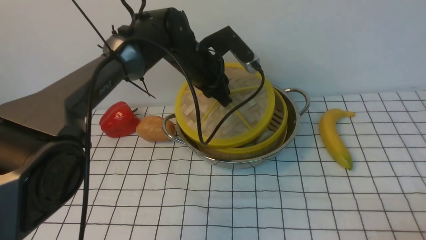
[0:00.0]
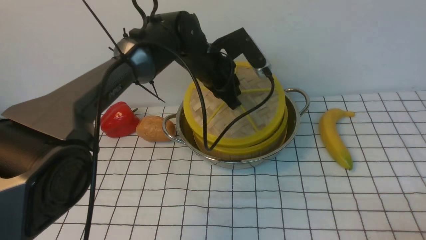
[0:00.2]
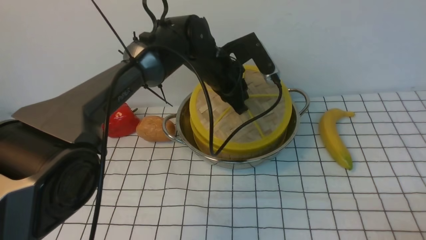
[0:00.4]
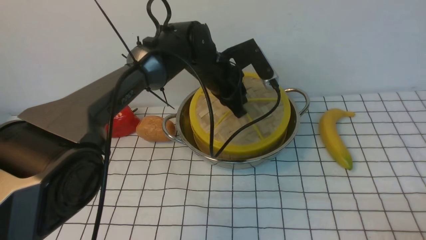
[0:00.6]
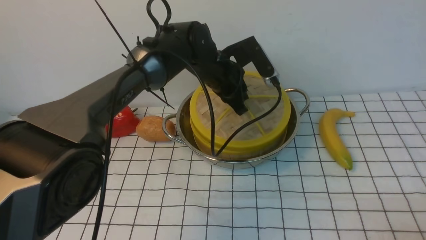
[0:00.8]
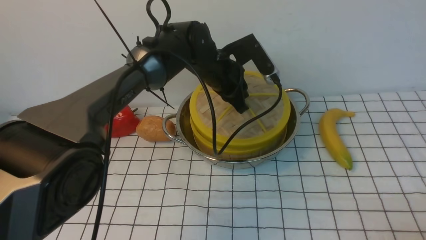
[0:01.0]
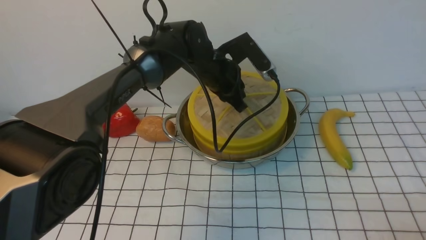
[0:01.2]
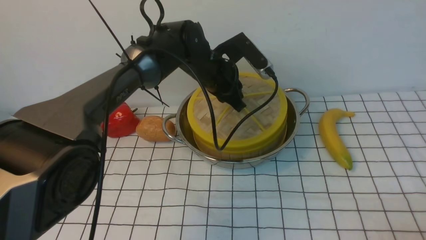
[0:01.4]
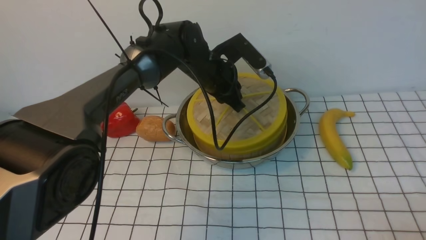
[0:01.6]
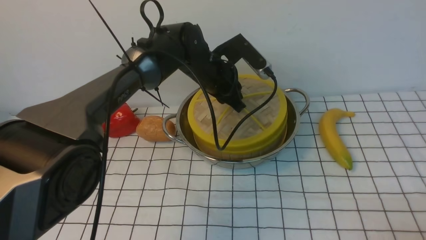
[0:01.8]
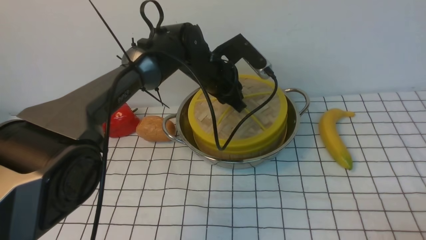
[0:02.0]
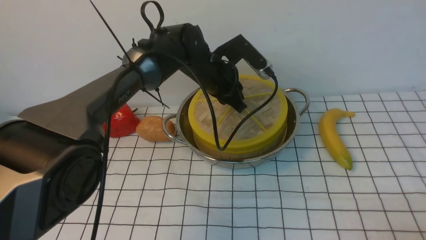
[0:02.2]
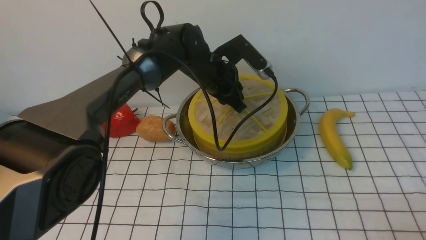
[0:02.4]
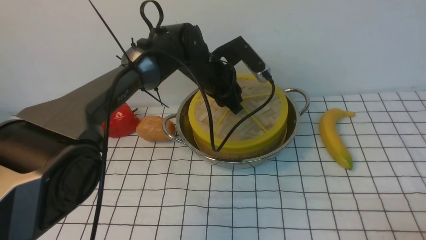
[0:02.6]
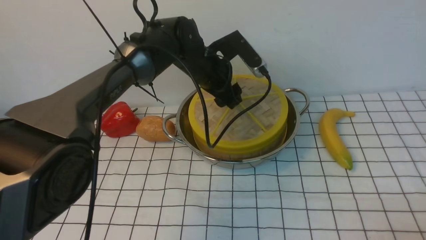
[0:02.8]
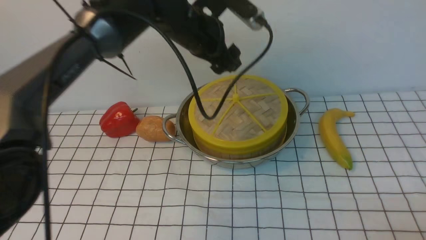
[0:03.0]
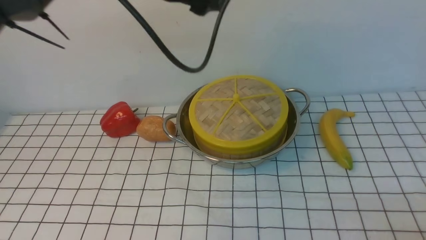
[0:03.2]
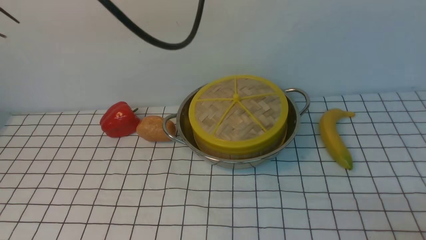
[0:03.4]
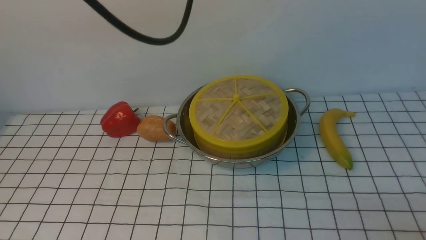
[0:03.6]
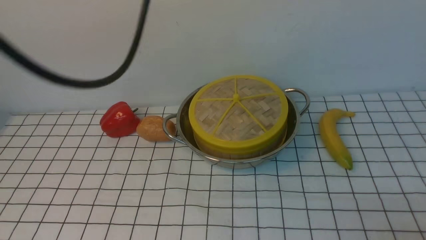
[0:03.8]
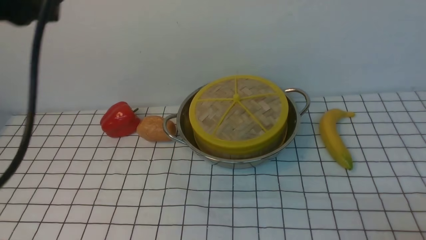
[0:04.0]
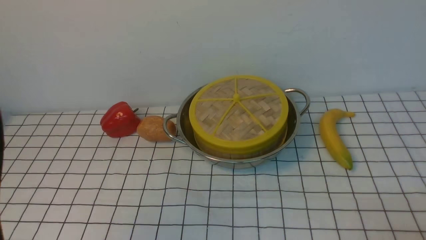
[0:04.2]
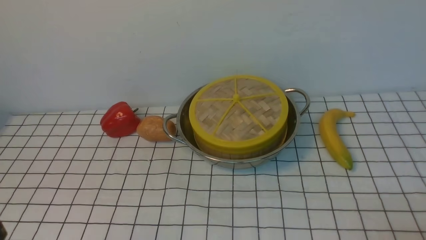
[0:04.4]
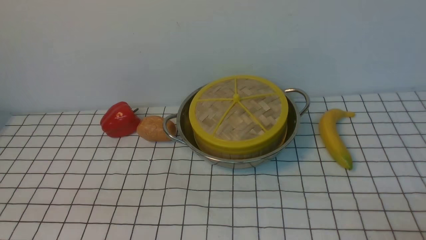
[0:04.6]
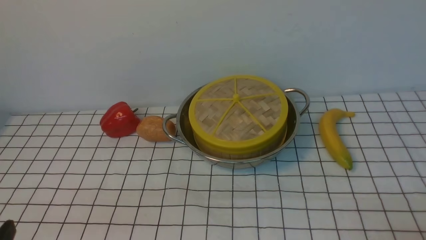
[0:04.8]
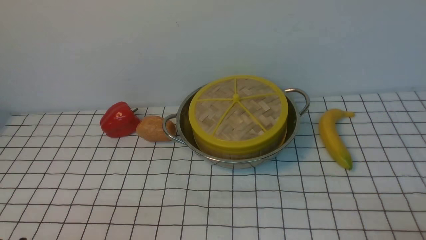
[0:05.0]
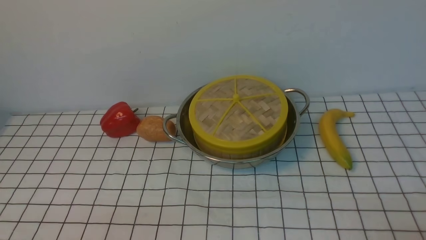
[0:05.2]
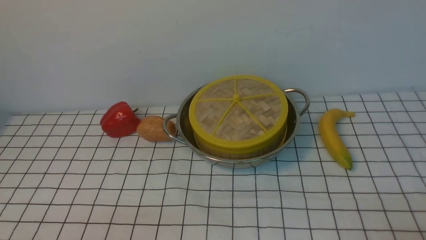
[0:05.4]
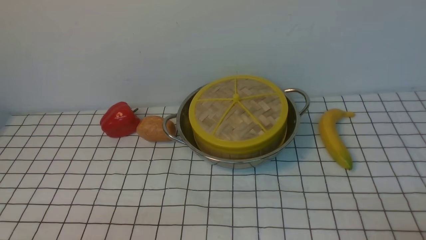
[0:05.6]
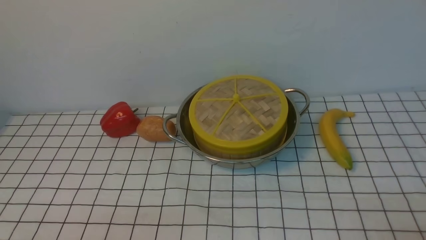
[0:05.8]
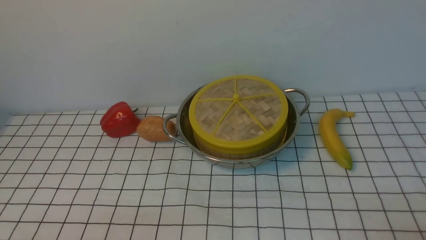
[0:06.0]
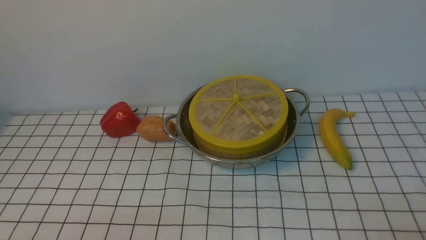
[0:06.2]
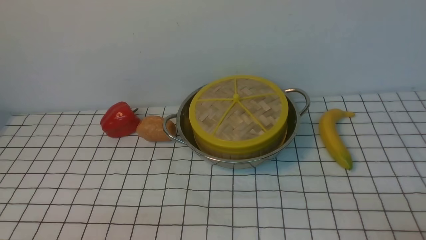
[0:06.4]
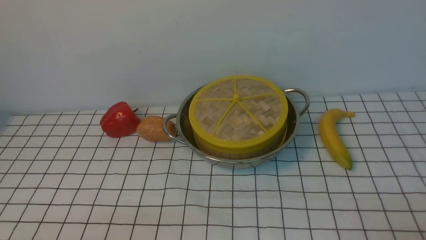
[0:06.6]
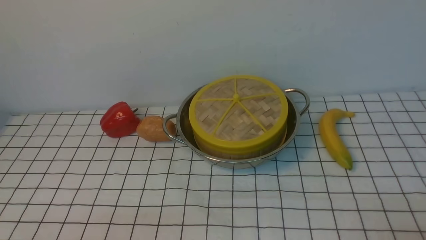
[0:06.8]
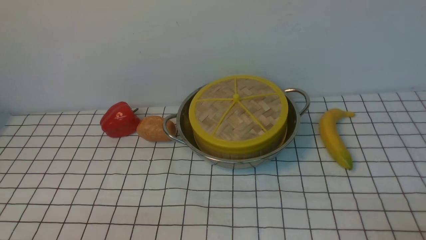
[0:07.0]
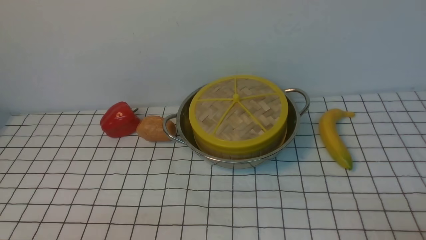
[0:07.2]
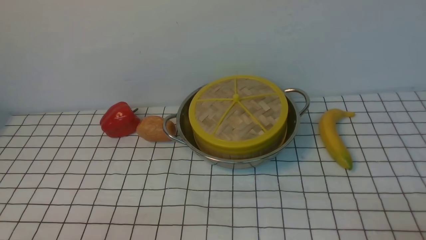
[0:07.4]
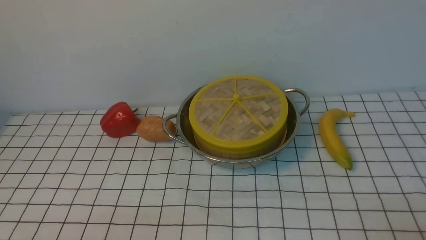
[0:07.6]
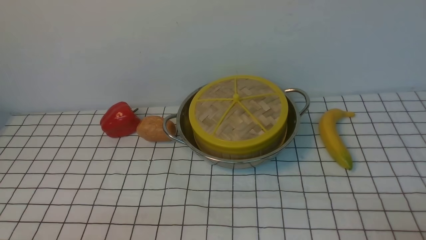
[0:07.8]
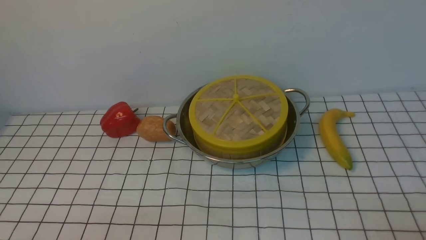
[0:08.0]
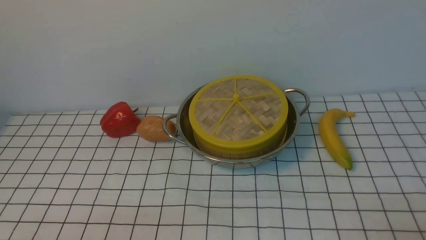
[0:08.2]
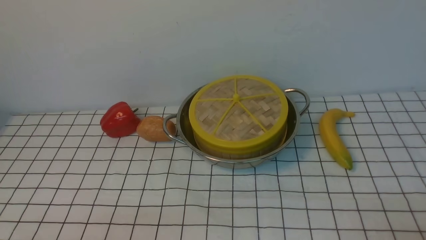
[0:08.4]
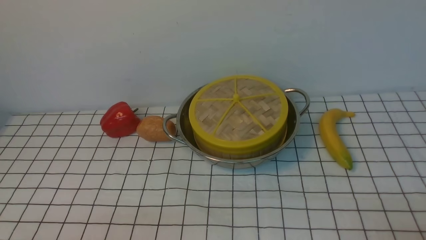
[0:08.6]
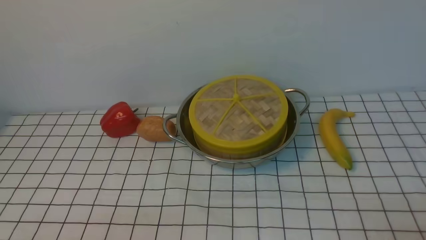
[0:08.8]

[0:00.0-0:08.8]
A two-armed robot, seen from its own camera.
Task of the whole recording: place the steamer in the pot on the white tablecloth, and put the lid on the steamer.
Step, 0:00.0 to 0:02.8: use the left arm to place the steamer lid on the steamer.
0:00.0 to 0:01.4: The grippers move only a little.
0:01.4 to 0:03.0: The left gripper is displaced upward by roughly 10 cm, and opens its fingers.
0:03.0 to 0:04.4: The left gripper heads backward and to the left, covering roughly 40 cm, and closes up.
0:07.4 to 0:08.8: The two grippers keep their place.
